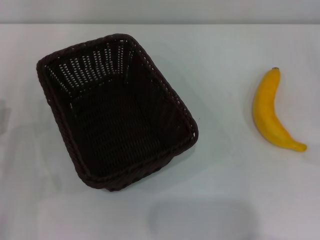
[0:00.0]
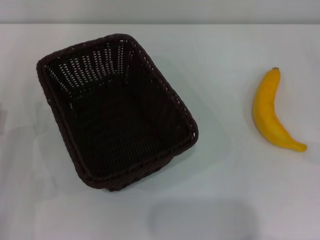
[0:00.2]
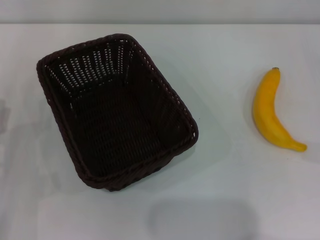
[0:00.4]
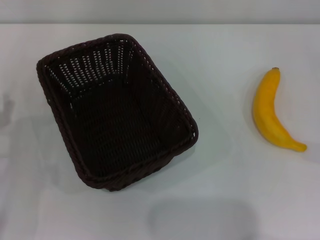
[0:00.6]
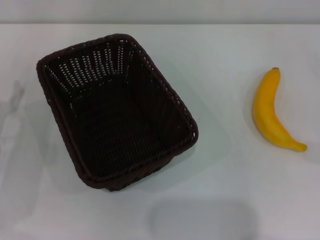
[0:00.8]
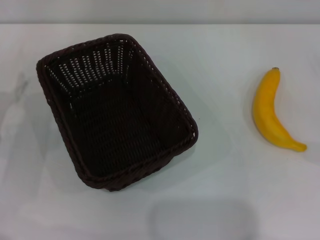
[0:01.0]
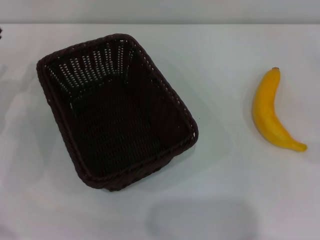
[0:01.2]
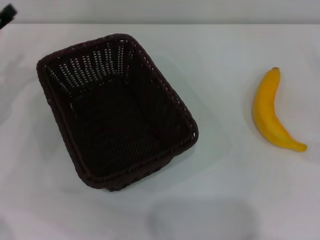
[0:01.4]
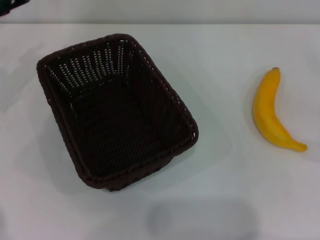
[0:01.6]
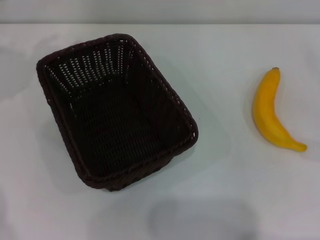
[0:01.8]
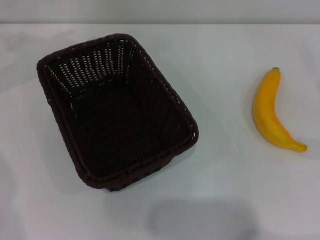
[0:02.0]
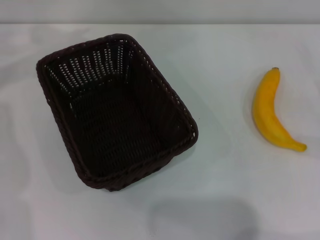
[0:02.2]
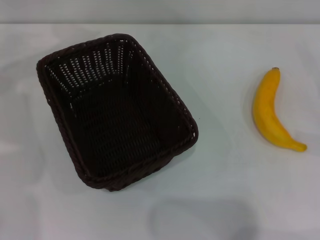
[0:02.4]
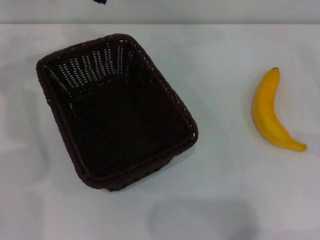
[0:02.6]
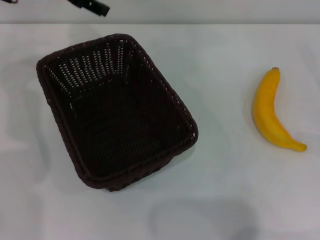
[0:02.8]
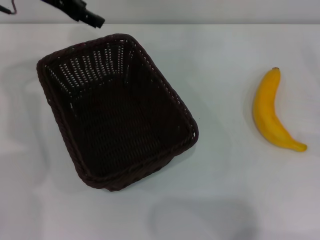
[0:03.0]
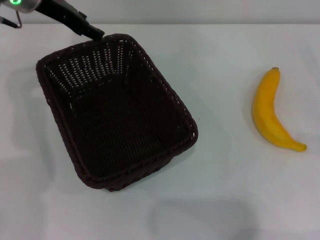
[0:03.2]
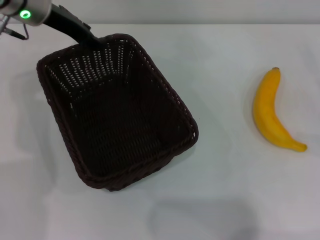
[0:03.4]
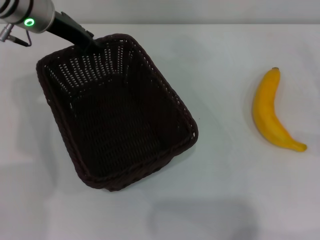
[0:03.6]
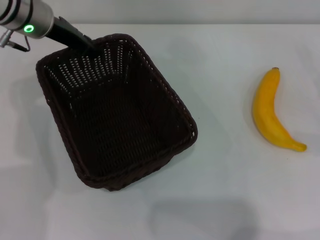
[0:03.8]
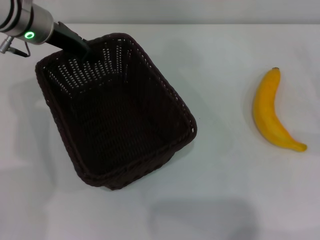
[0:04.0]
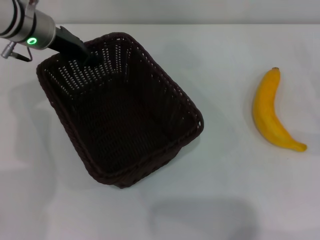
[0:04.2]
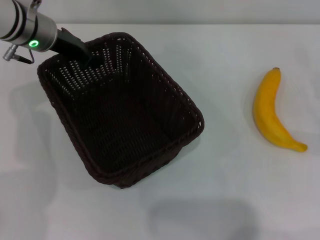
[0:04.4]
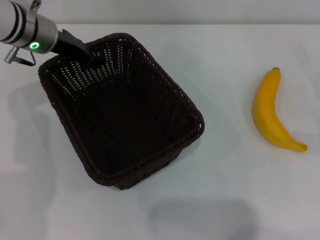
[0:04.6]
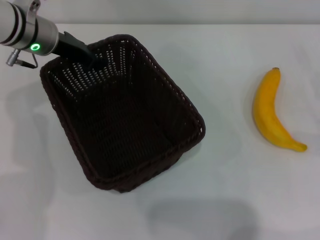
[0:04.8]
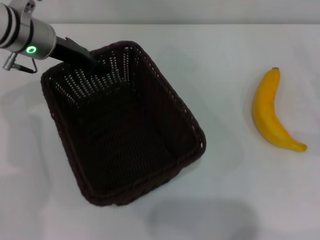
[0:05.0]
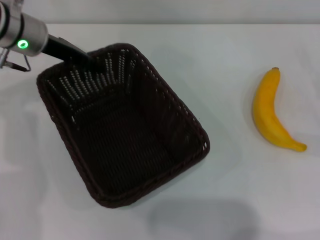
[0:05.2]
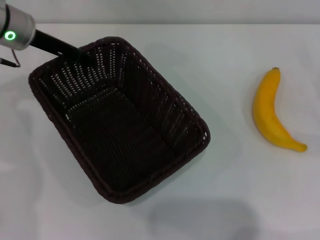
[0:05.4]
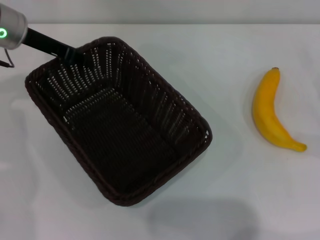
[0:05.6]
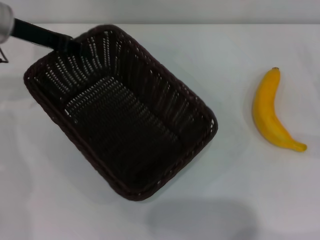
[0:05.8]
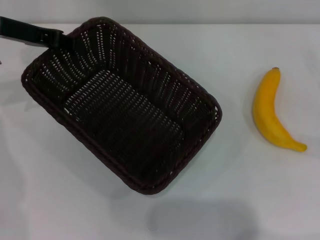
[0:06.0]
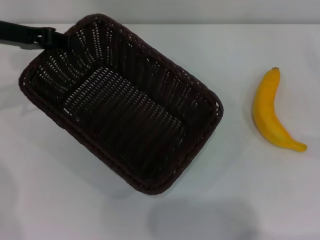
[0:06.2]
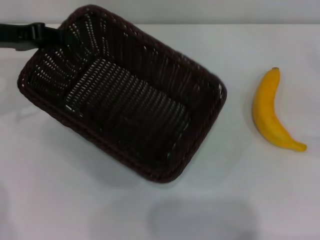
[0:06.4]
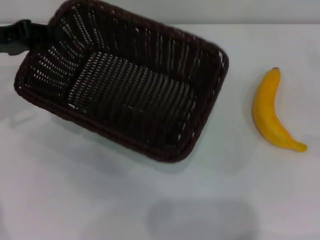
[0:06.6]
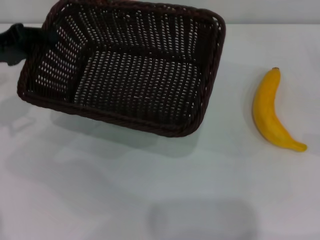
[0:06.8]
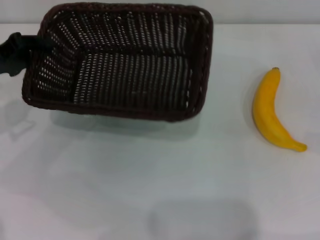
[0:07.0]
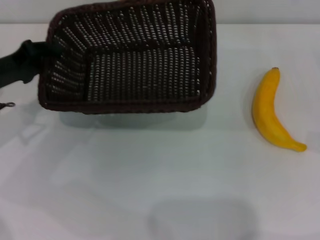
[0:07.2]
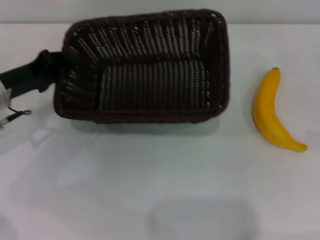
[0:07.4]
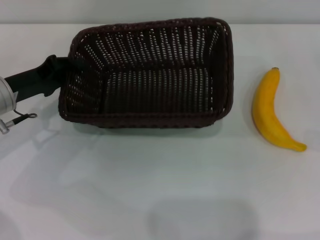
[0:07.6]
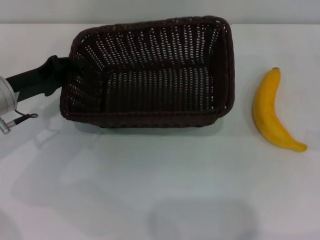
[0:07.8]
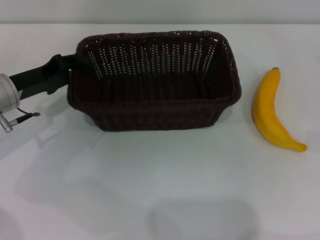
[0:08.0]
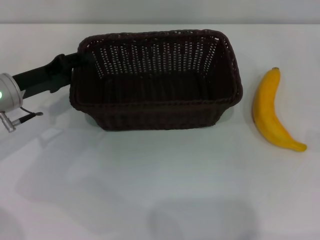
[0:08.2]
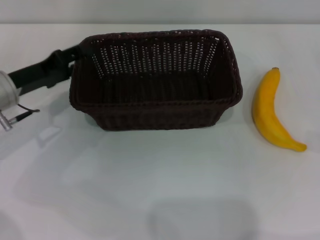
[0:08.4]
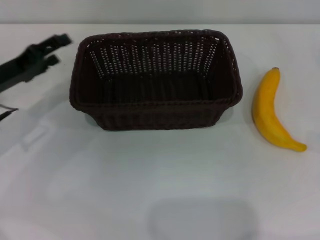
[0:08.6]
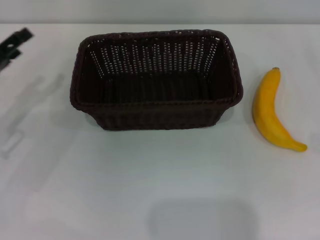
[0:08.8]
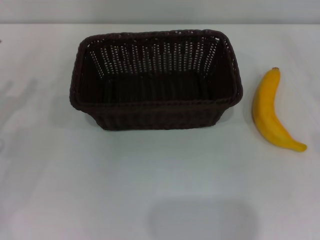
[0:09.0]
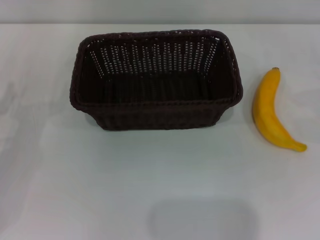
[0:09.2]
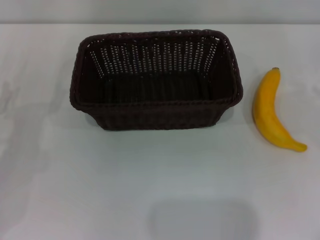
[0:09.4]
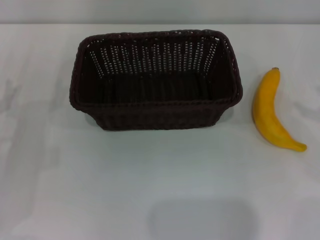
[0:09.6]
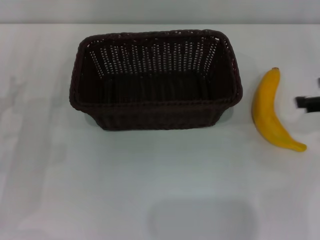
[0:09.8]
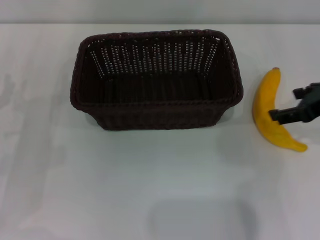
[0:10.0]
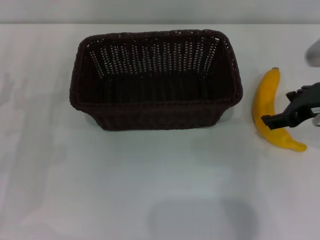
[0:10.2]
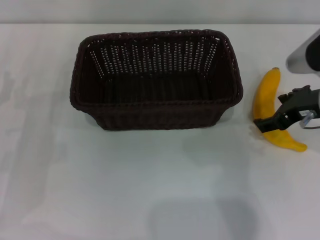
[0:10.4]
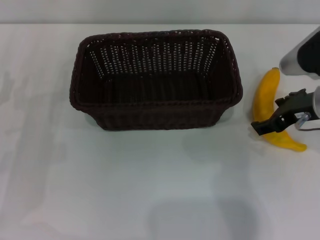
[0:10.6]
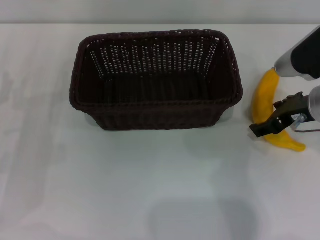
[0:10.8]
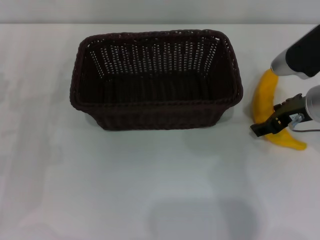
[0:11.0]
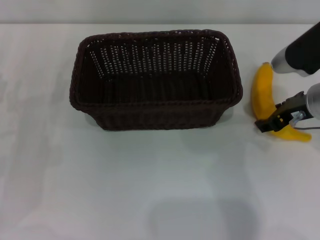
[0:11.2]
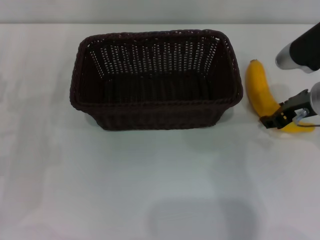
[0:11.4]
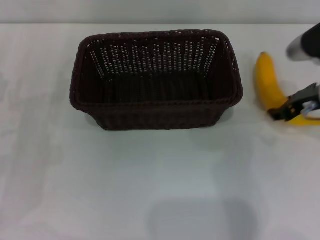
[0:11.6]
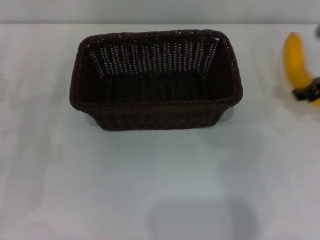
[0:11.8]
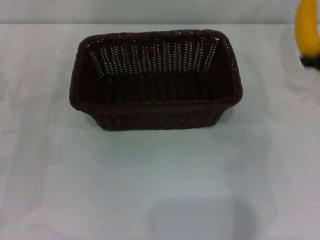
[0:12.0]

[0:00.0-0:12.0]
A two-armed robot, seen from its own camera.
Step, 0:00.0 to 0:05.6: Pick up the dark basket with the left gripper.
Step, 0:06.0 to 0:08.6: Place the dark basket in the center of view with the left gripper.
Step, 0:08.8 to 0:11.6: Pick up the banana with the right gripper.
0:00.0 to 0:01.6: The left gripper is displaced forward and upward by roughly 20 cm.
0:01.6 to 0:03.0: The left gripper travels to the right, upward and forward by some 15 cm.
0:03.0 to 0:04.4: The left gripper goes some 10 cm downward, and closes.
0:04.4 to 0:06.0: The left gripper goes roughly 5 cm to the left.
0:06.0 to 0:07.6: The left gripper shifts approximately 15 cm downward and backward.
0:07.6 to 0:09.0: The left gripper goes about 10 cm to the left and backward, and opens its fingers.
0:09.0 to 0:10.4: The right gripper goes approximately 20 cm to the left and upward.
0:10.4 to 0:12.0: The right gripper moves to the right and forward, approximately 10 cm, and closes up.

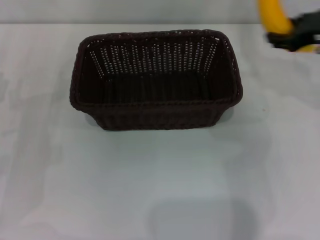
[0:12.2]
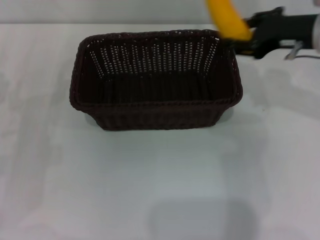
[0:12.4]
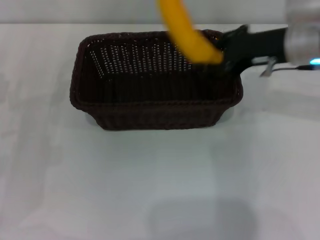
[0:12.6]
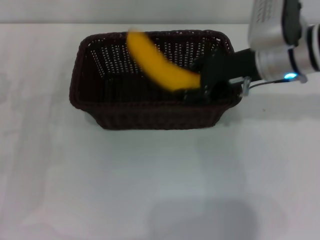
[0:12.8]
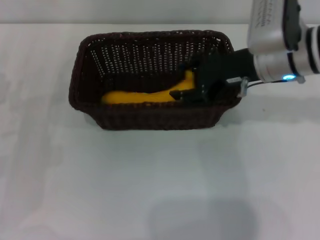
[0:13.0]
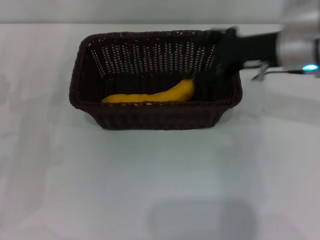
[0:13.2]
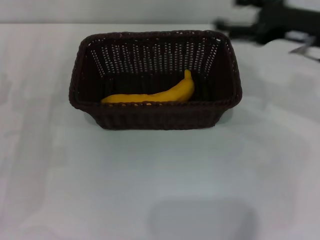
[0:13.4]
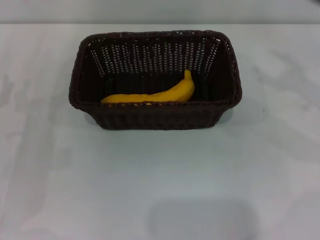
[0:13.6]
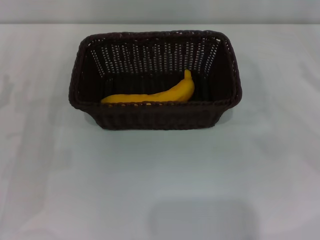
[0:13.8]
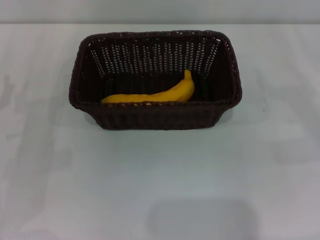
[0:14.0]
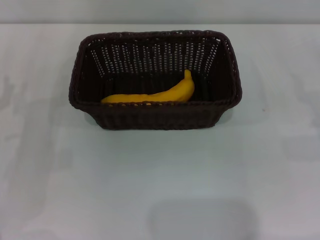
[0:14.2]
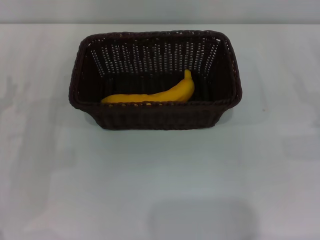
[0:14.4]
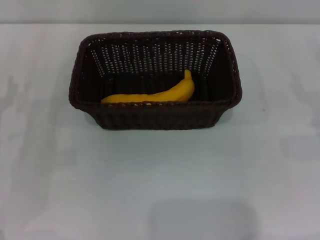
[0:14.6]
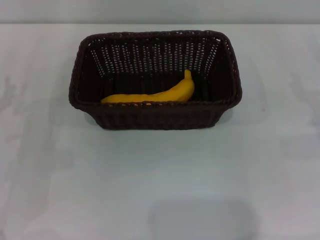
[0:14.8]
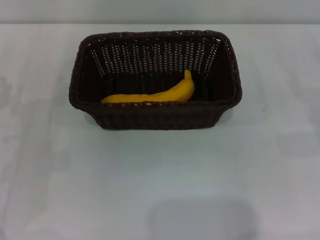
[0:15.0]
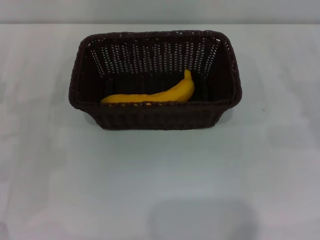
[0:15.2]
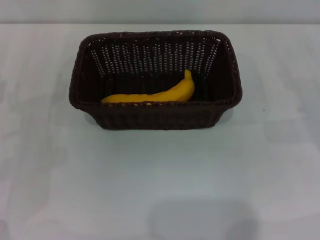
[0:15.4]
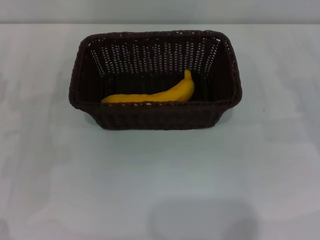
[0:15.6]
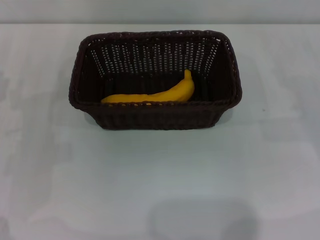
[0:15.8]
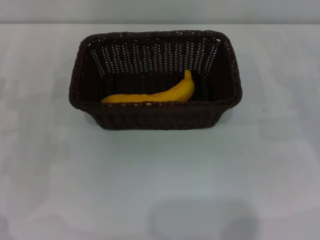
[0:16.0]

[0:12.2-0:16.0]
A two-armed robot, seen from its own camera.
Step, 0:12.2 to 0:13.2: Place the banana into the dark basket with the right gripper.
0:12.2 to 0:13.4: The right gripper travels to the left and back again, about 10 cm each way, and opens.
0:13.4 to 0:14.8: The right gripper is displaced downward, to the right and backward by some 20 cm.
